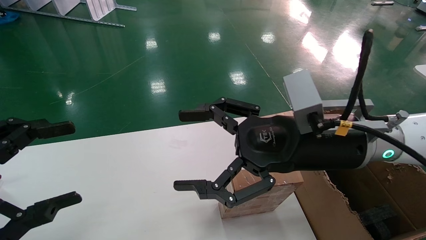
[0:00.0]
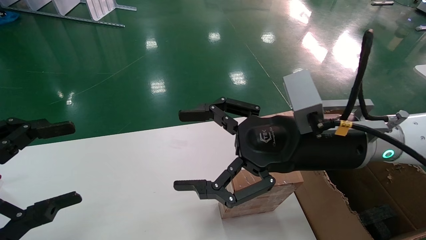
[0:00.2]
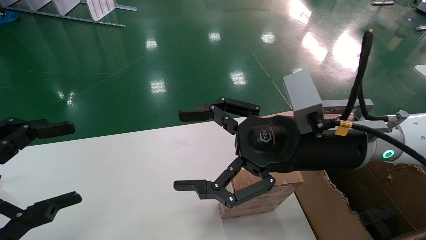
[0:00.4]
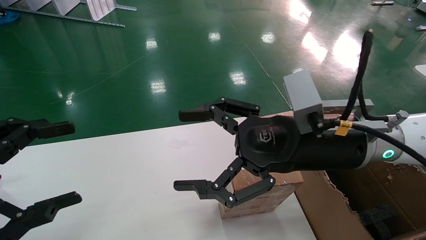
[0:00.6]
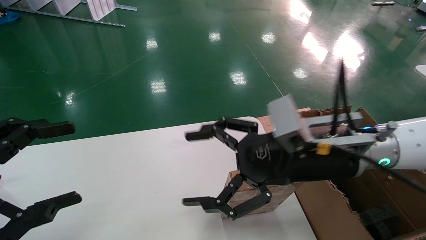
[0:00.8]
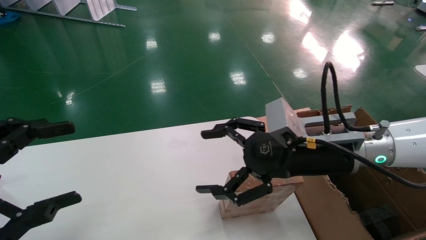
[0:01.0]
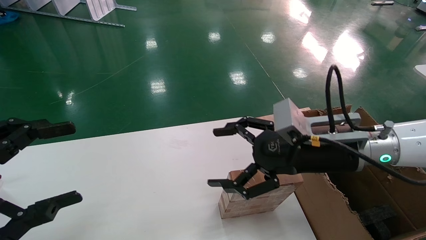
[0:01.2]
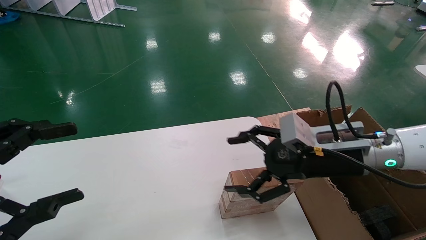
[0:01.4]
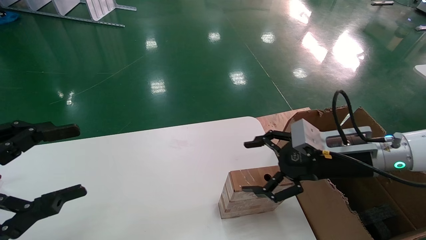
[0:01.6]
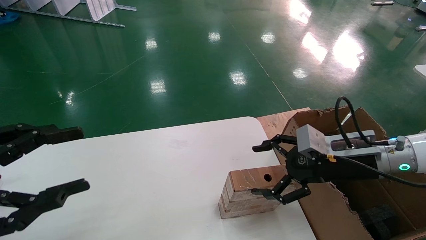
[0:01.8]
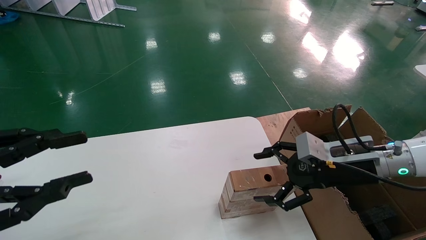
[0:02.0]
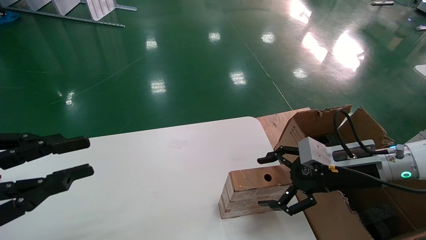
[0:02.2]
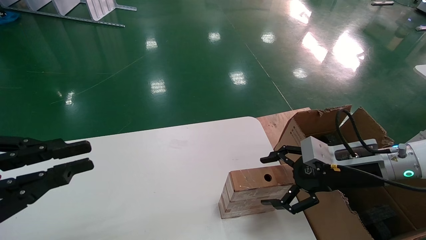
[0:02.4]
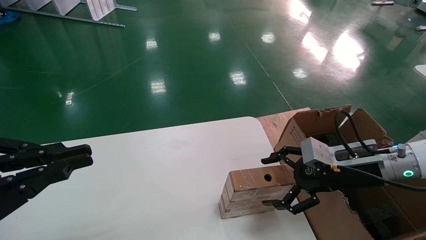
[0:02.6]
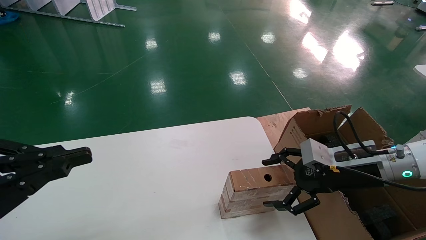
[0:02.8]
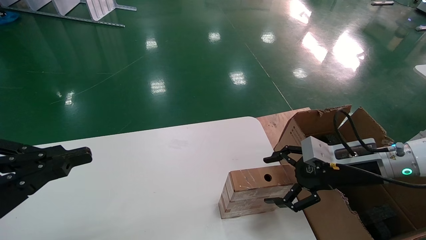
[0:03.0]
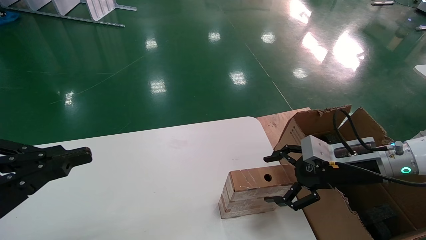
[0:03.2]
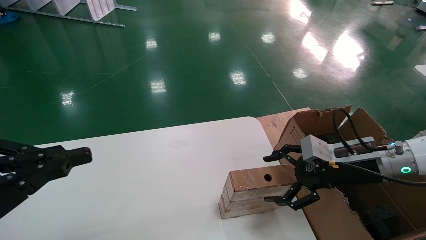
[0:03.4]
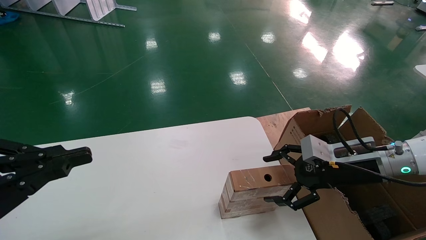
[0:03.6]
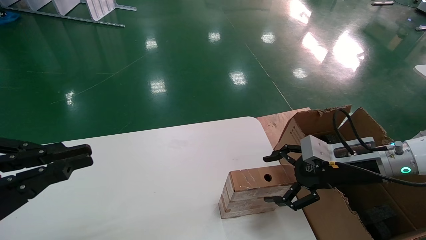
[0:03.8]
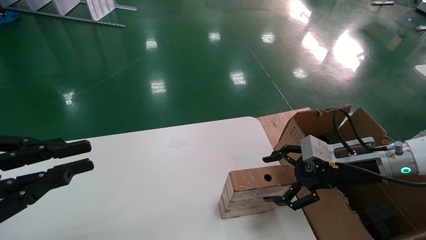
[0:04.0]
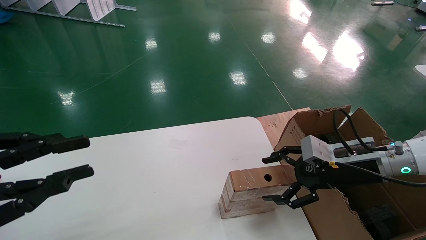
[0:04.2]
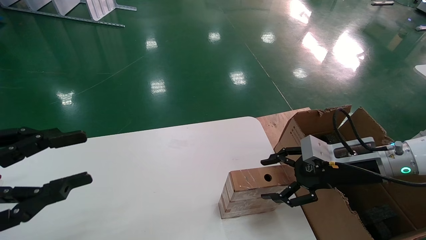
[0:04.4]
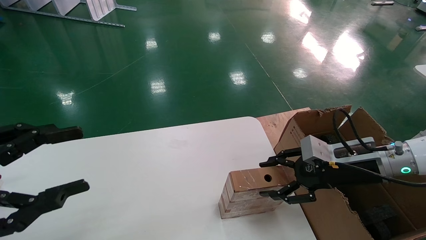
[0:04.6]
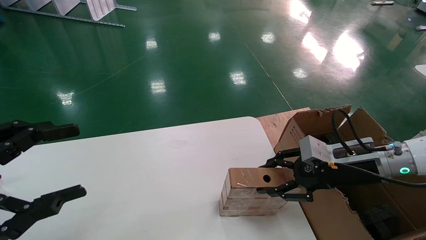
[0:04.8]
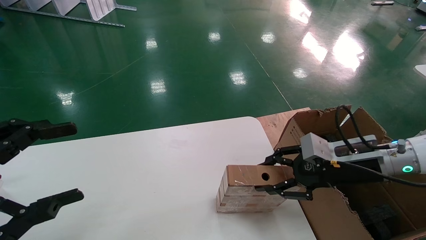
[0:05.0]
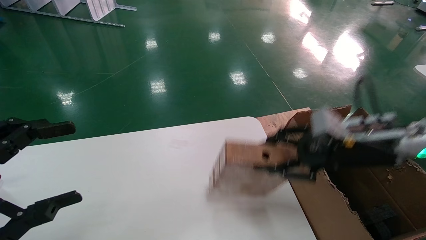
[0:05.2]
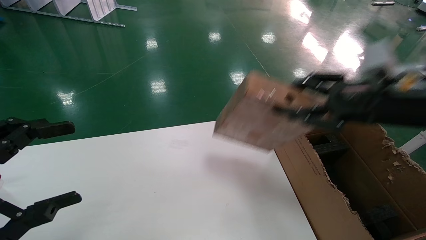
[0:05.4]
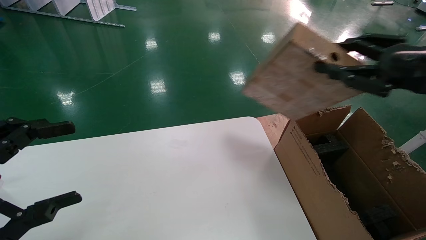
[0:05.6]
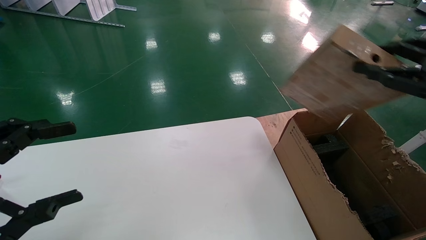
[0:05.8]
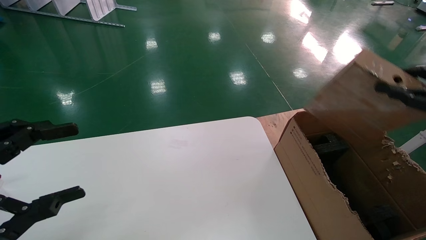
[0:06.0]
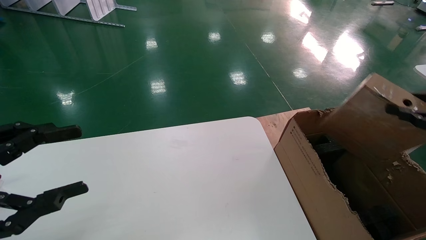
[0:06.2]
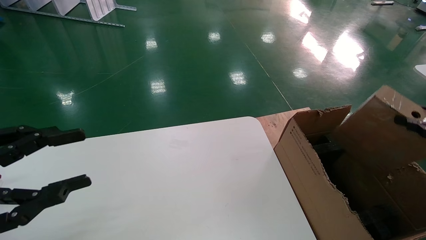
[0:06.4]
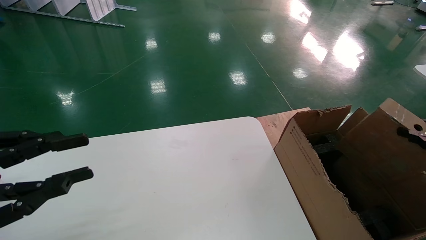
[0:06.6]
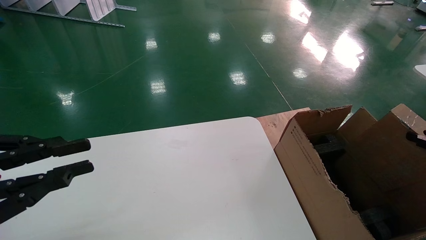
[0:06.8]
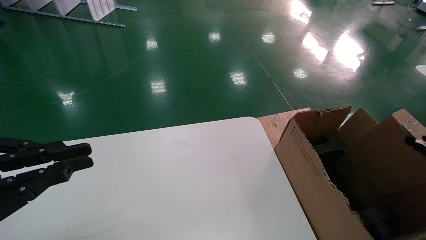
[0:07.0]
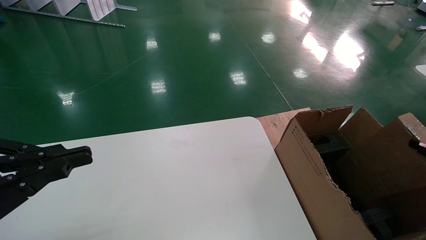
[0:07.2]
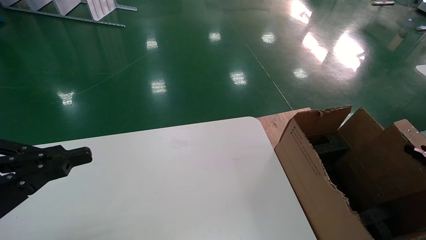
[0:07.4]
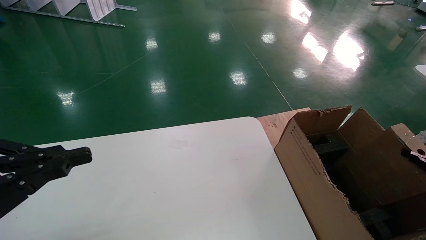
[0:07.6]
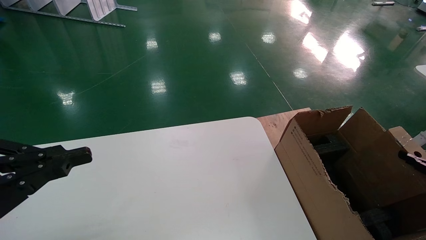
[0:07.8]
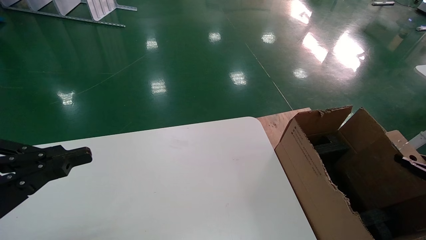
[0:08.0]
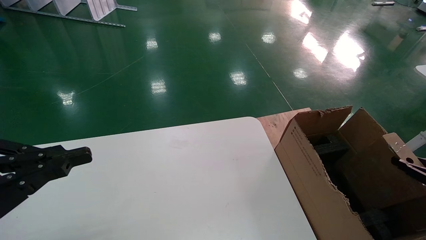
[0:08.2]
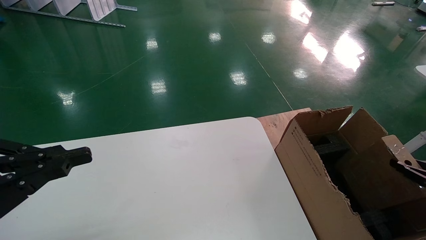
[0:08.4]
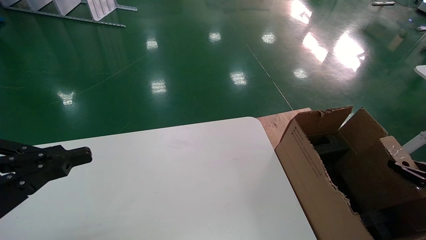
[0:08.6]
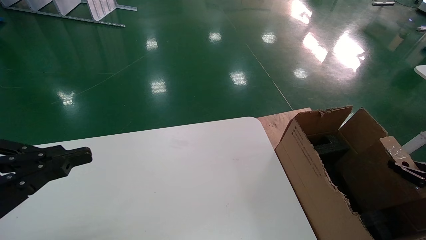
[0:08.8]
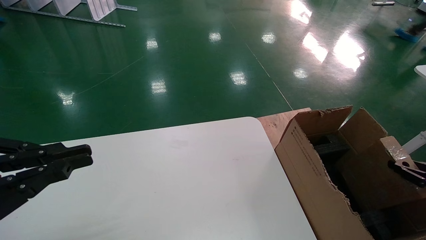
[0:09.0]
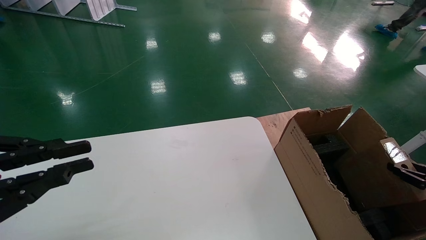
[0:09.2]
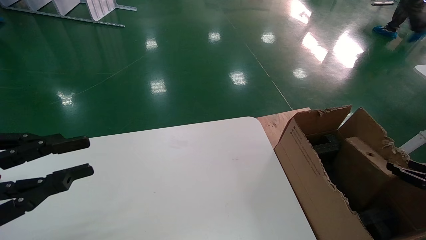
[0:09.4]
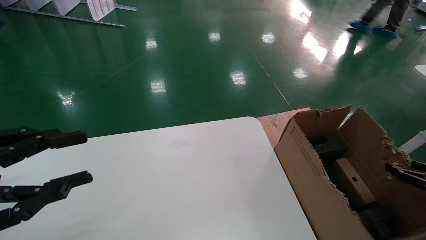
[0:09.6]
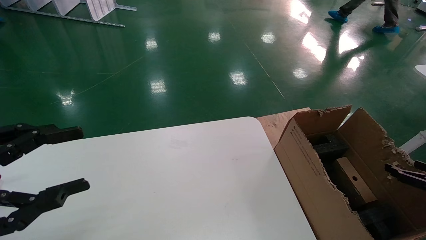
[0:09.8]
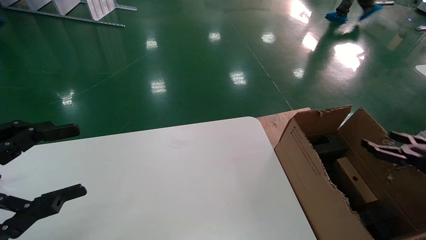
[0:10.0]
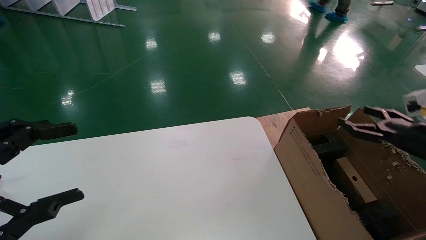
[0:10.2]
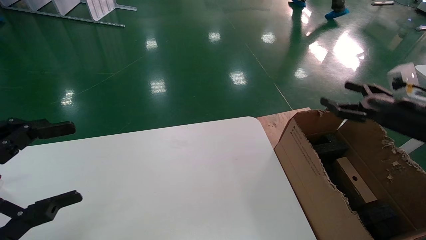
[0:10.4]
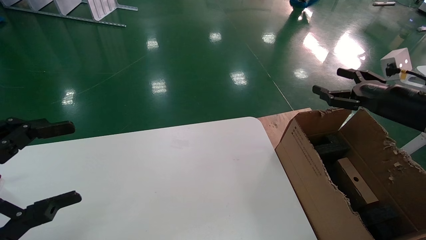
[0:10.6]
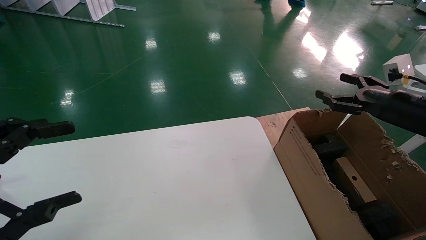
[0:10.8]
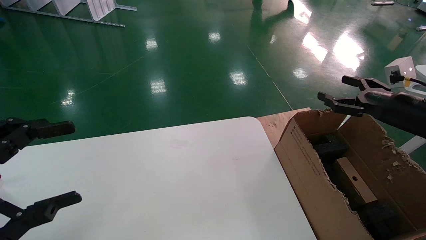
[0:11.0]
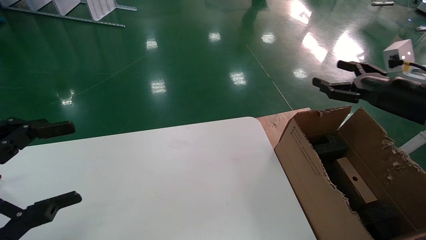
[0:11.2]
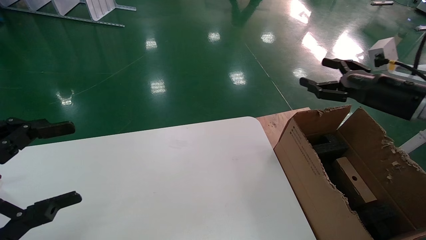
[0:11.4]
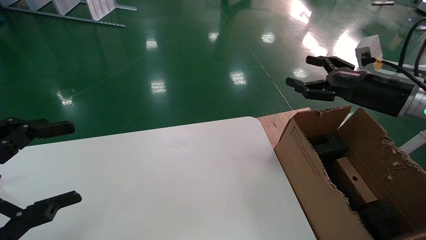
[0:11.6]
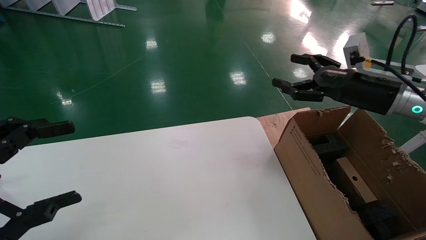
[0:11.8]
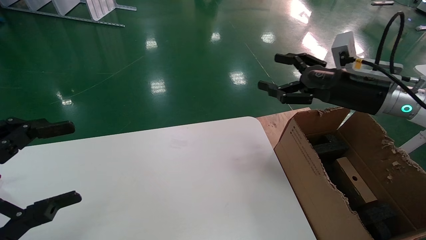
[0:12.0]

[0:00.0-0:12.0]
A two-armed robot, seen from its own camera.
Task of the whole recording: put the box on the table into the big box.
Step, 0:01.2 to 0:04.8: Pick up the mouse and the power cord paper box.
Step, 0:05.0 to 0:09.8: Place the mouse and the power cord paper box into the container.
0:00.0 to 0:01.6: The right gripper is displaced to the right and downward by about 10 cm.
0:01.6 to 0:03.0: The right gripper changes place by roughly 5 cm; the left gripper closes up.
0:03.0 to 0:04.4: The left gripper opens its fingers.
0:04.4 to 0:06.0: The right gripper shifts roughly 25 cm to the right, upward and backward, and closes its fingers. Meanwhile the left gripper opens its fingers.
0:06.0 to 0:07.6: The left gripper closes its fingers. The right gripper heads downward and to the right, covering about 20 cm.
0:07.6 to 0:09.0: The grippers stay close to where they were, moving slightly.
0:09.0 to 0:10.4: The right gripper shifts roughly 20 cm upward, forward and to the left, and opens up. The left gripper opens its fingers.
0:10.4 to 0:12.0: The right gripper travels to the left, upward and forward by roughly 15 cm.

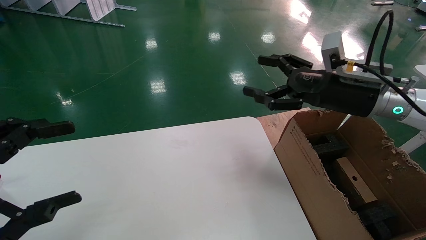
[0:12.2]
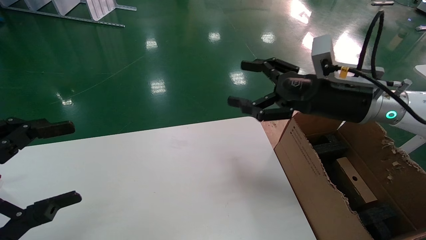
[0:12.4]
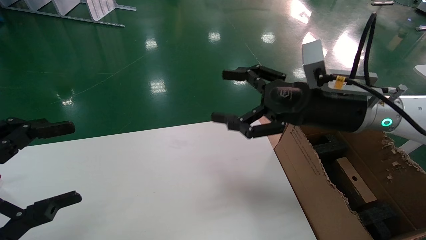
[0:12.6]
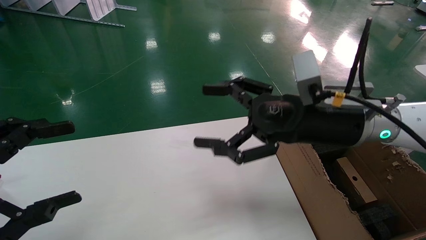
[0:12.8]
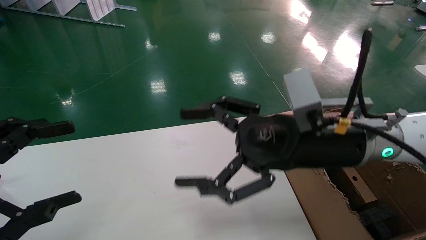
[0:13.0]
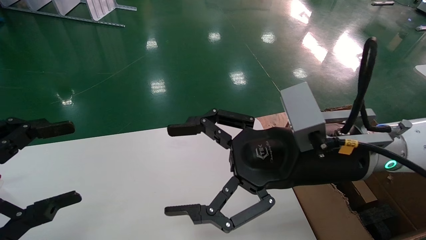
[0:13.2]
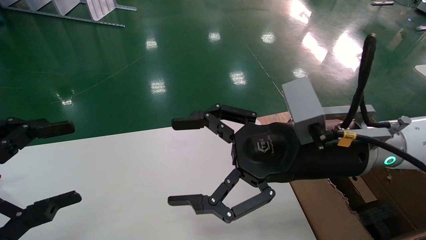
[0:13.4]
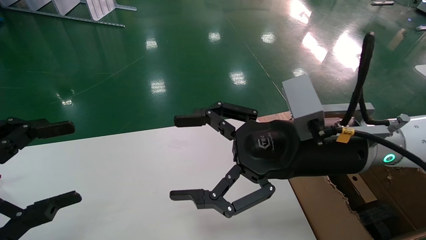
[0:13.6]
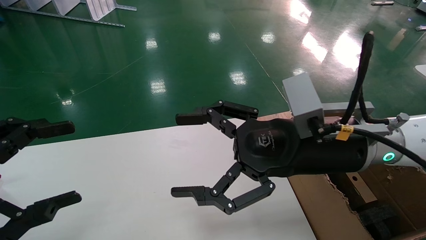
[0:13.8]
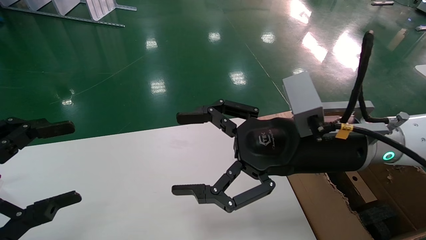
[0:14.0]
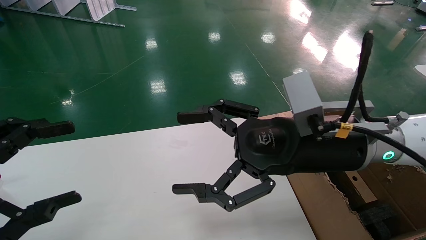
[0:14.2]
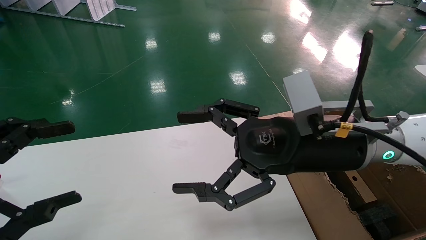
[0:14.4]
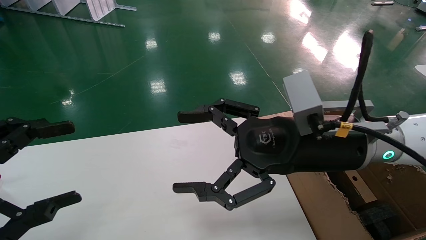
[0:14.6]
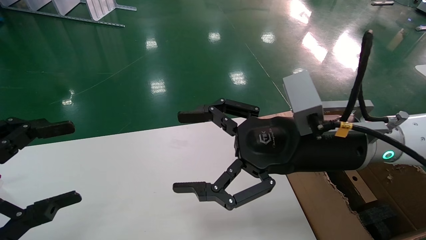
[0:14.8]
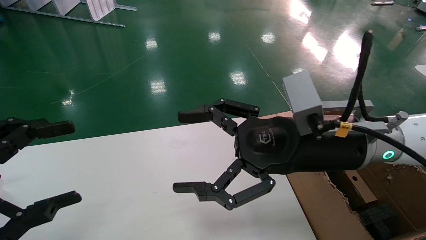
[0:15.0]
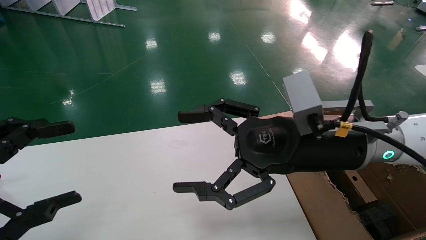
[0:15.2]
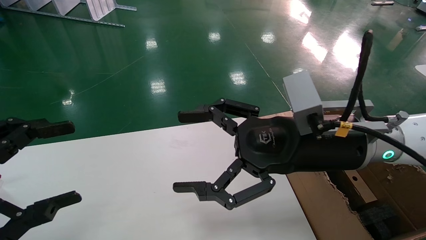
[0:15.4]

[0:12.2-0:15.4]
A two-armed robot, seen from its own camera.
Task of the whole recording: put the box on the table into the big box.
0:12.2 to 0:13.8: The right gripper shifts roughly 15 cm to the left and backward.
0:13.8 to 0:15.4: Both grippers stay about where they are.
